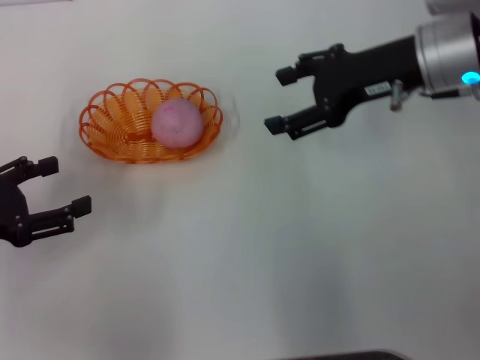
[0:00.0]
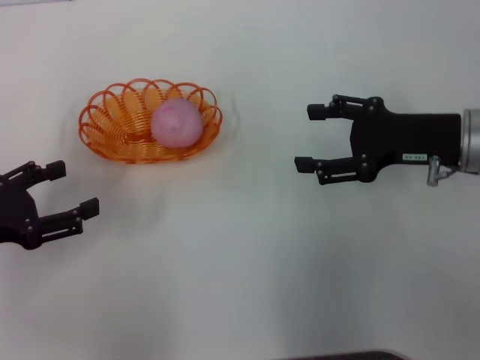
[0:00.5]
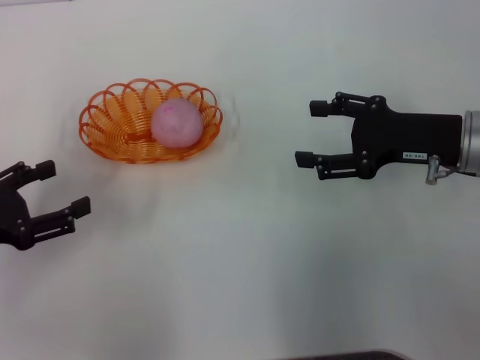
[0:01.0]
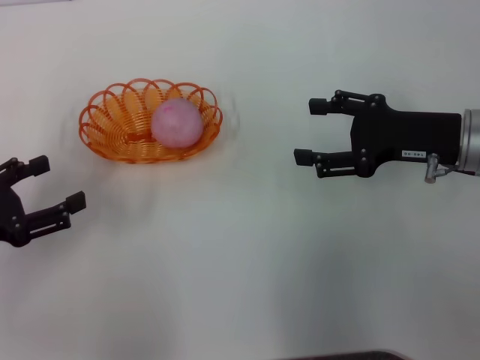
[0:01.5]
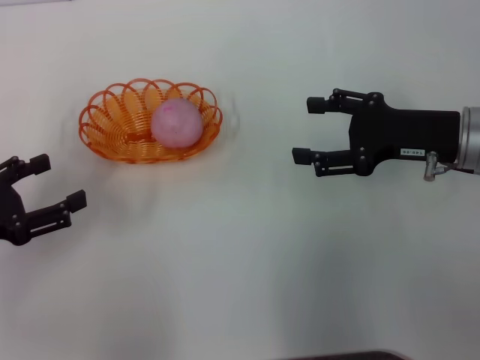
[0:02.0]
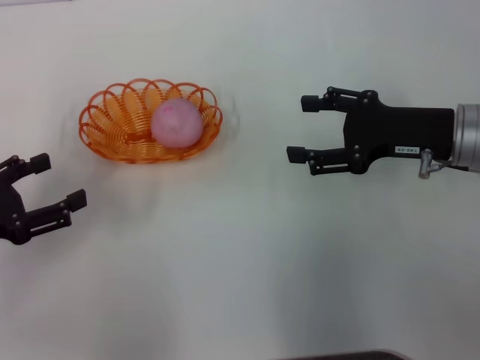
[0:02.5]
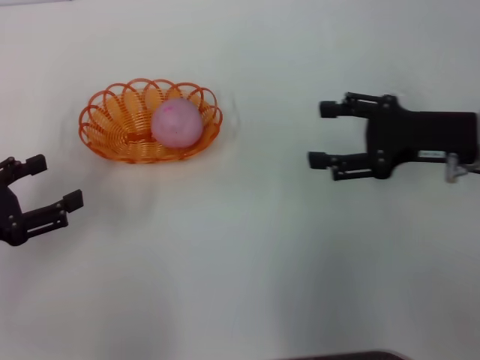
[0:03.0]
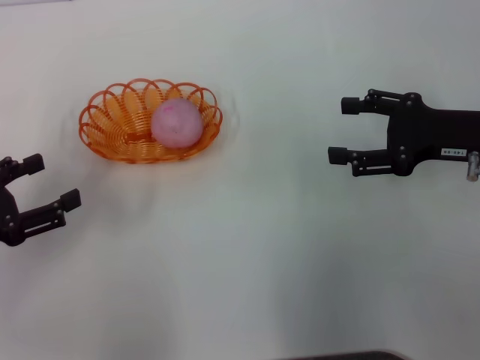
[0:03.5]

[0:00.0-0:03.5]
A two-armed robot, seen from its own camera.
0:00.0 to 0:02.0: The right gripper travels downward and backward by some 10 cm.
0:02.0 to 0:03.5: There are only small adjustments of the grippers.

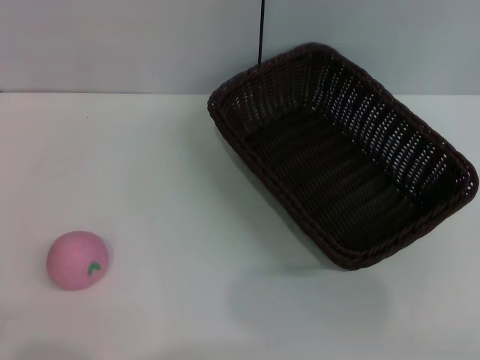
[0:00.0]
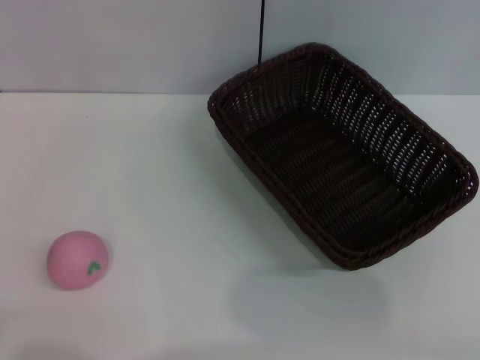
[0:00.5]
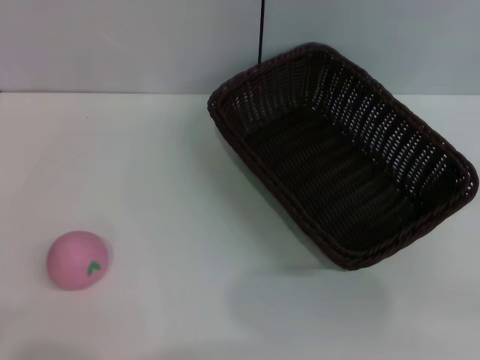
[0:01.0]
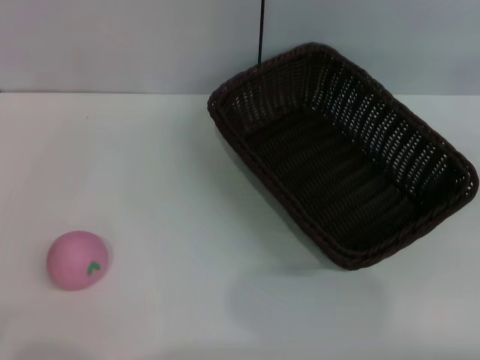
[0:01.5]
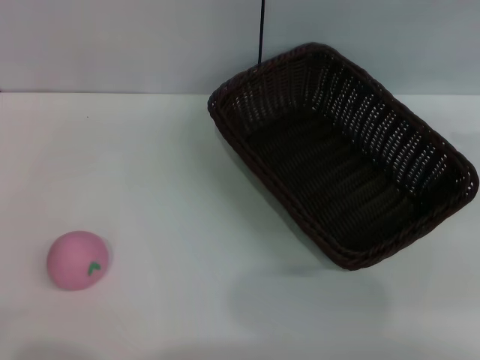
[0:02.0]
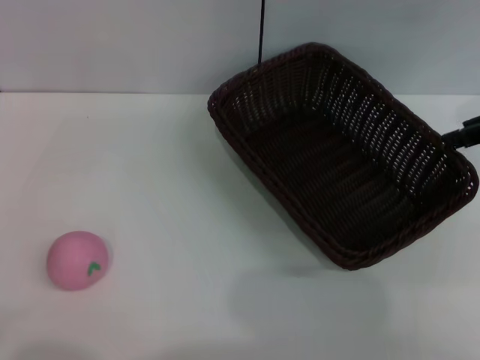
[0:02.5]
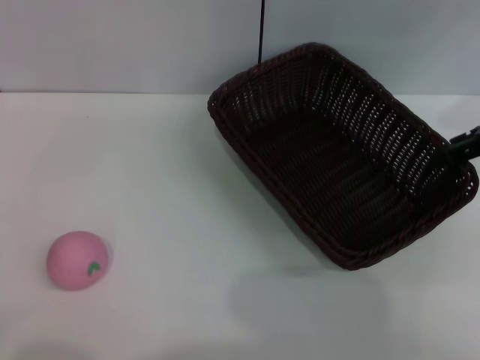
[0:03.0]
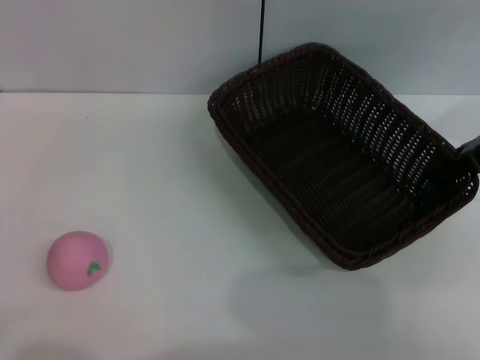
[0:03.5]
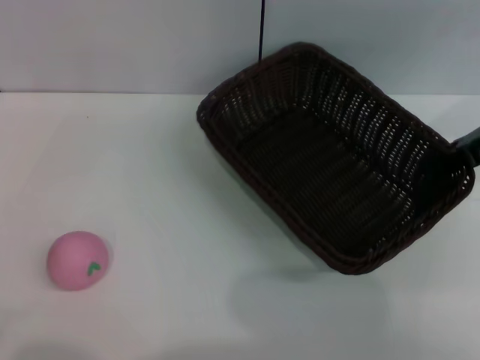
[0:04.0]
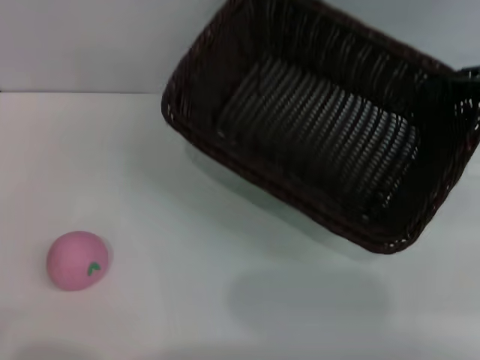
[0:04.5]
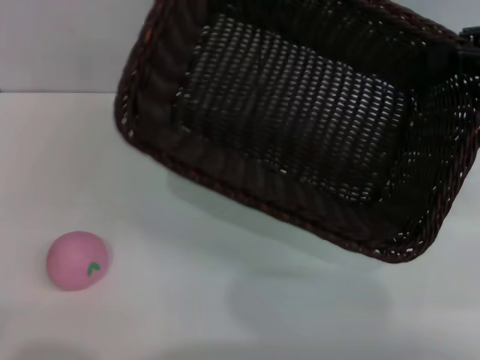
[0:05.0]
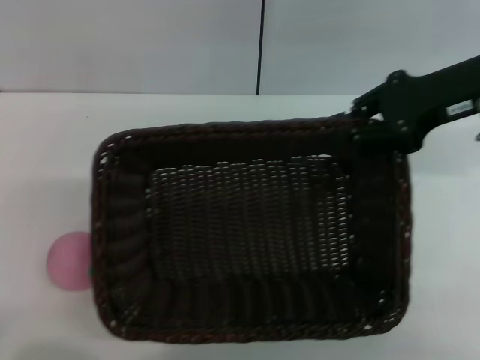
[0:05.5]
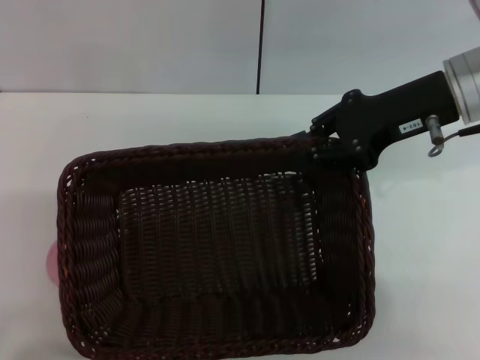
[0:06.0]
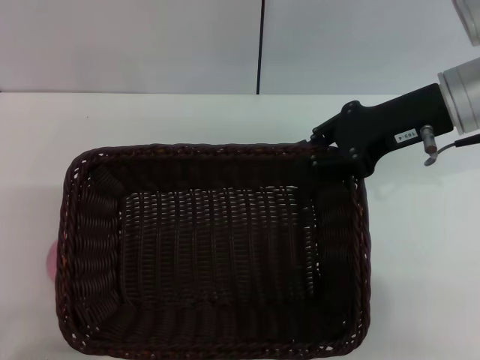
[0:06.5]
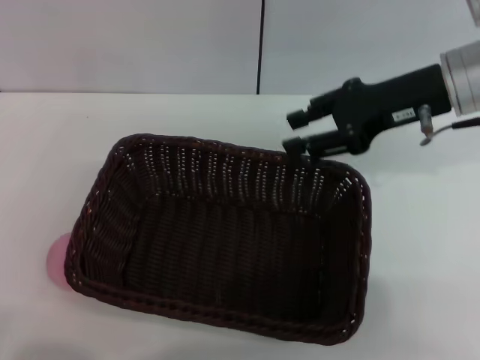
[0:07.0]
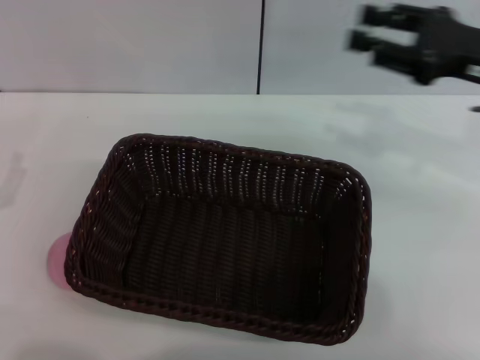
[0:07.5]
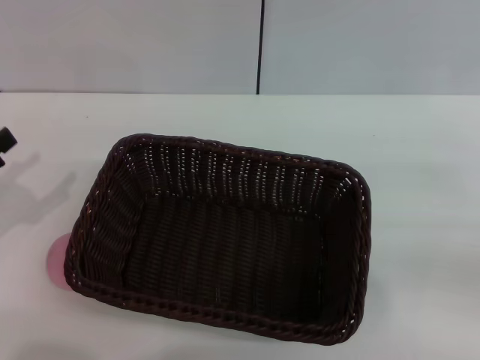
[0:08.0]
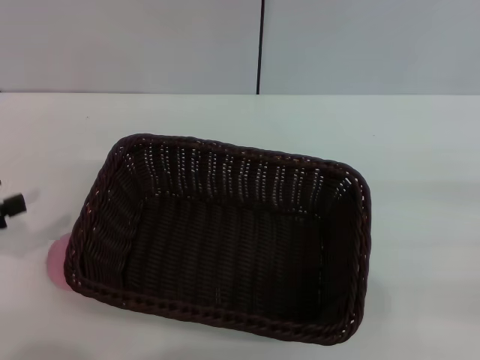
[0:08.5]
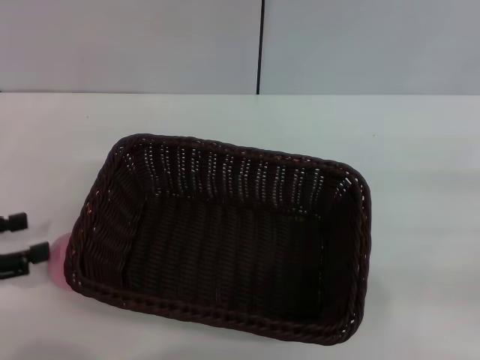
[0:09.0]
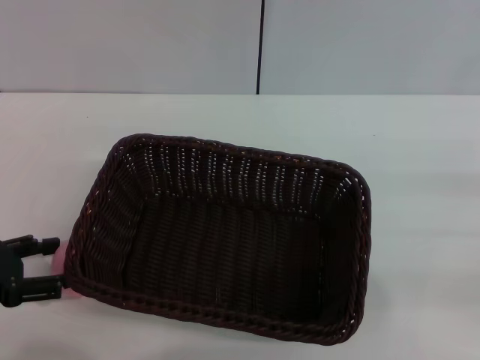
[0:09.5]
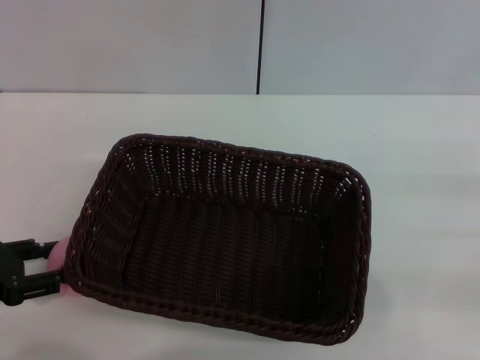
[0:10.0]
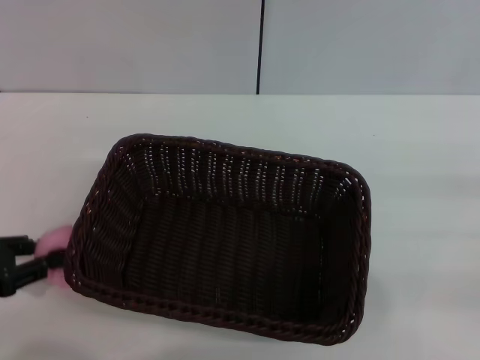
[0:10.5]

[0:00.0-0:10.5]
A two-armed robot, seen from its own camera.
Step, 0:00.0 to 0:04.0: Pick up the dark basket with the right gripper.
Step, 0:04.5 to 0:07.0: Place the dark basket in the center of view with the right gripper.
0:02.0 to 0:04.0: The right gripper goes approximately 10 cm to the left and downward, and closes up.
0:04.0 to 0:06.5: The right gripper goes about 10 cm to the left.
0:06.5 to 0:08.5: The left gripper moves upward and to the left, approximately 10 cm. The right gripper heads to the right and backward, covering approximately 25 cm, and opens up.
0:08.5 to 0:10.5: The left gripper closes.

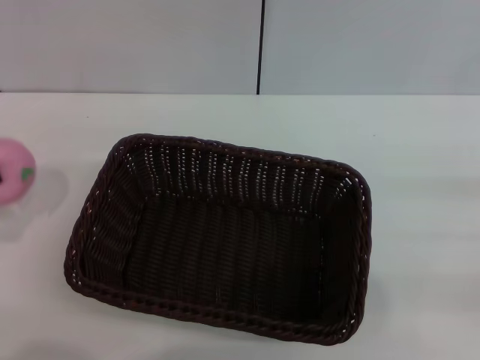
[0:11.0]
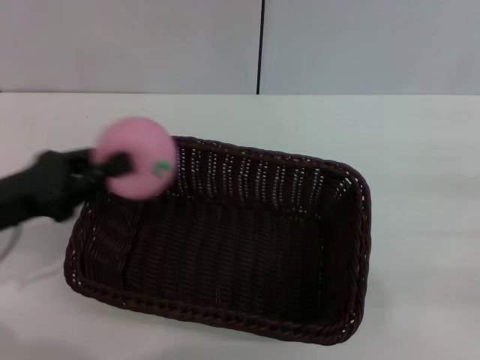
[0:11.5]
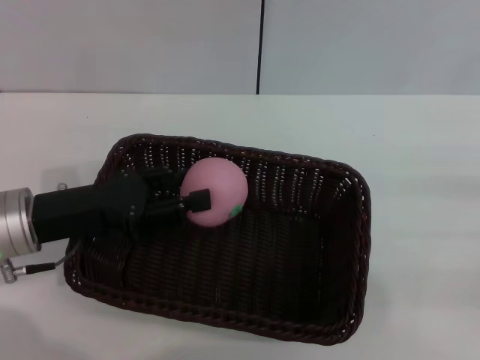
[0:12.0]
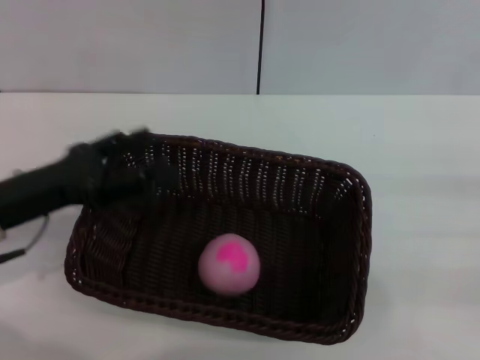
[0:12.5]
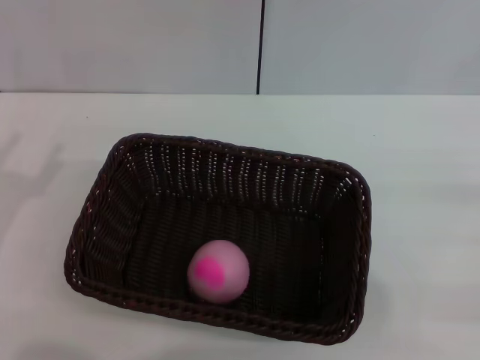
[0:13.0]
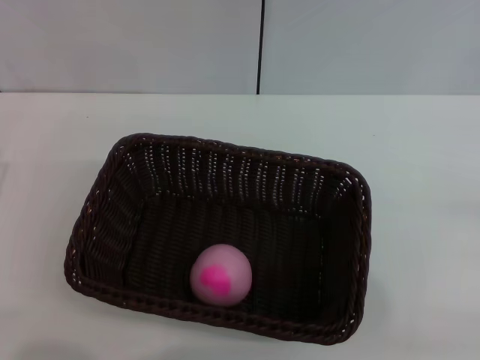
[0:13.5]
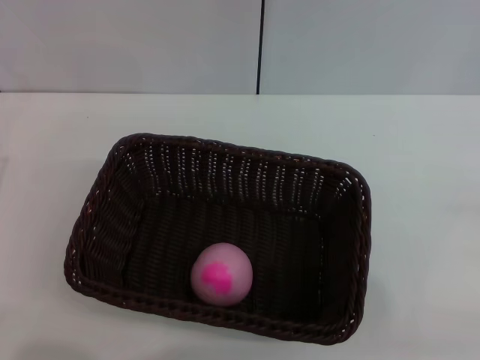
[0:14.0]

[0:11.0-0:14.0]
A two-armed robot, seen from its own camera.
Step, 0:11.5 to 0:12.5: Place the peach into the basket with the left gripper.
0:11.0 to 0:12.5: The left gripper goes roughly 15 cm to the right and forward, and opens.
0:12.5 to 0:14.0: The left gripper goes approximately 10 cm backward and to the left.
